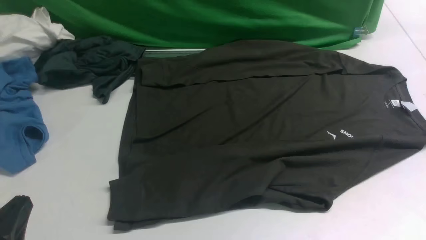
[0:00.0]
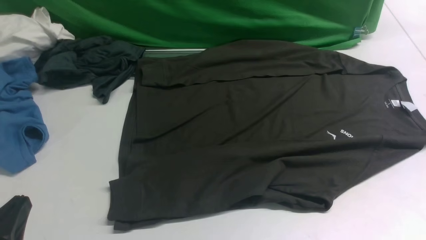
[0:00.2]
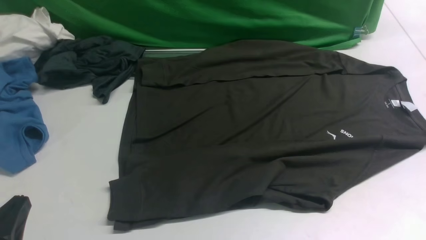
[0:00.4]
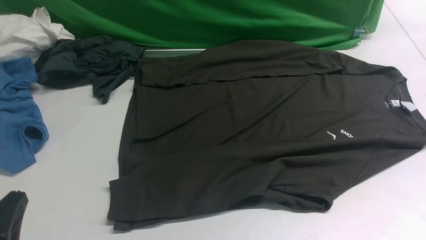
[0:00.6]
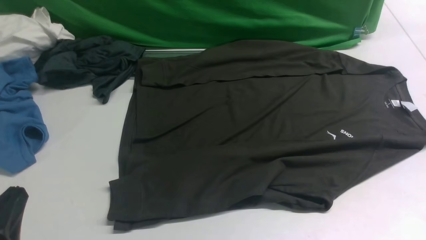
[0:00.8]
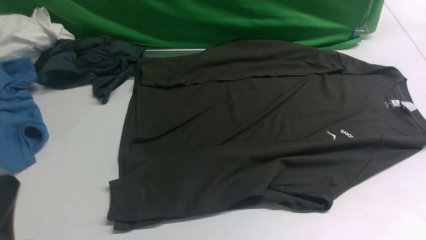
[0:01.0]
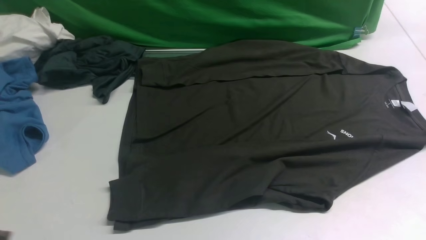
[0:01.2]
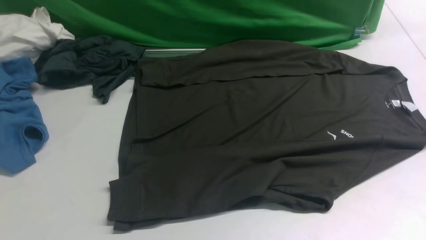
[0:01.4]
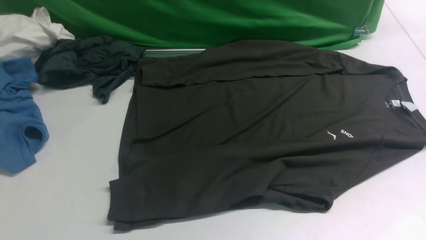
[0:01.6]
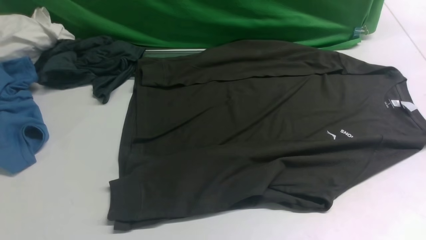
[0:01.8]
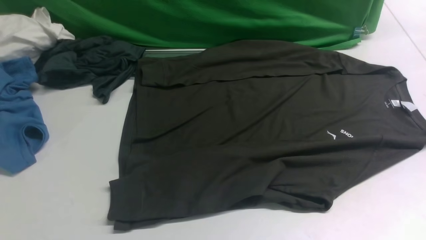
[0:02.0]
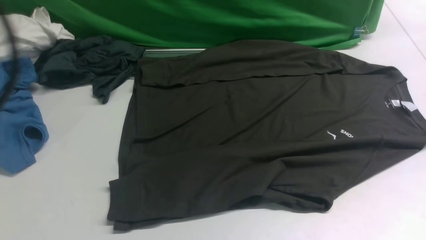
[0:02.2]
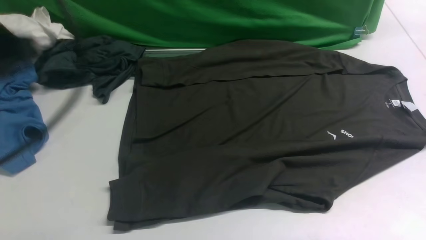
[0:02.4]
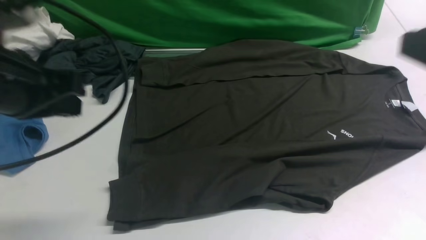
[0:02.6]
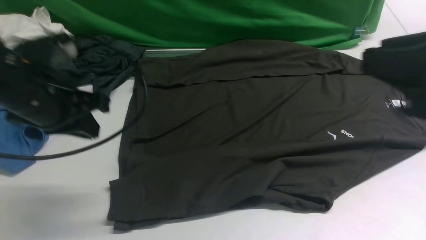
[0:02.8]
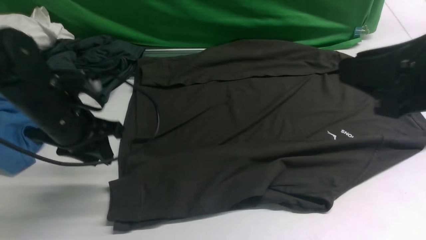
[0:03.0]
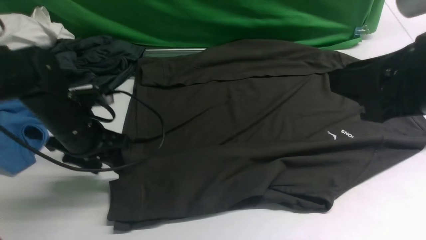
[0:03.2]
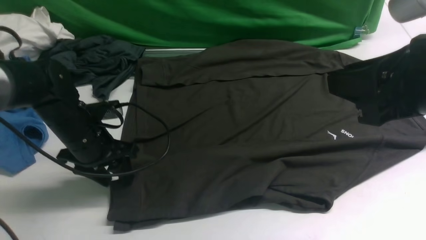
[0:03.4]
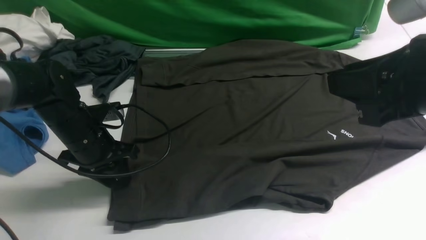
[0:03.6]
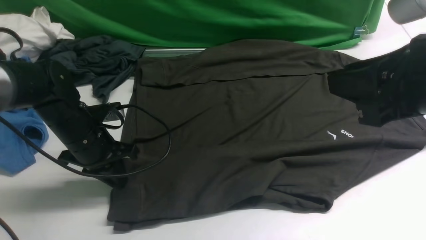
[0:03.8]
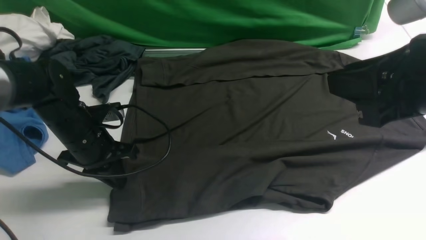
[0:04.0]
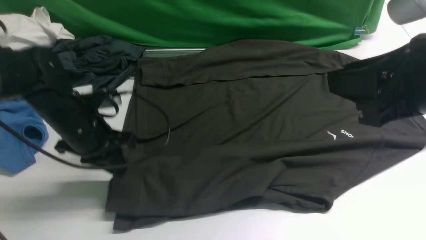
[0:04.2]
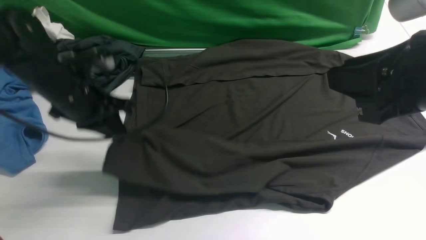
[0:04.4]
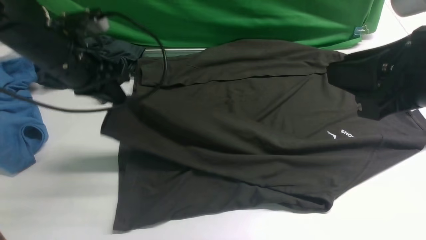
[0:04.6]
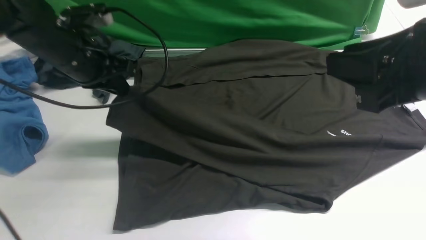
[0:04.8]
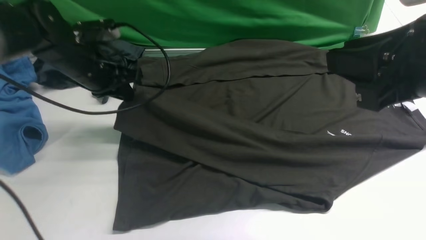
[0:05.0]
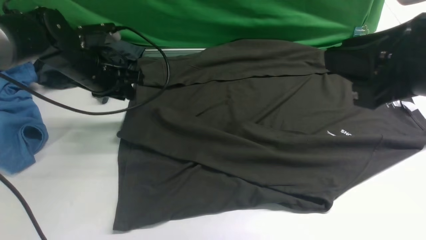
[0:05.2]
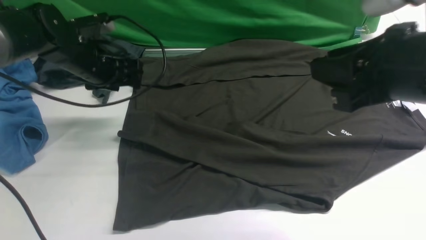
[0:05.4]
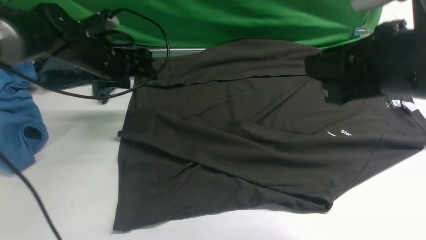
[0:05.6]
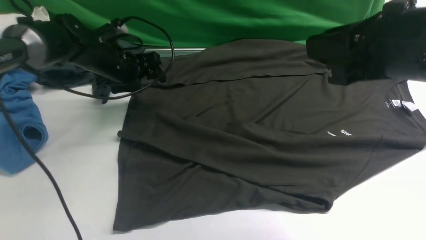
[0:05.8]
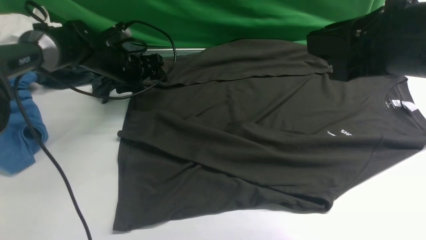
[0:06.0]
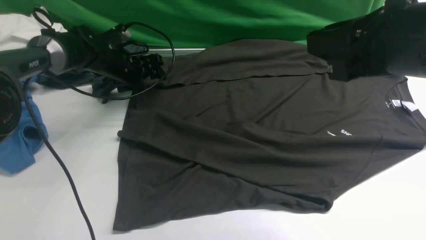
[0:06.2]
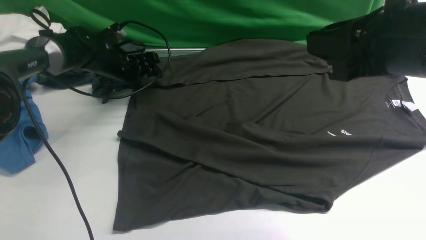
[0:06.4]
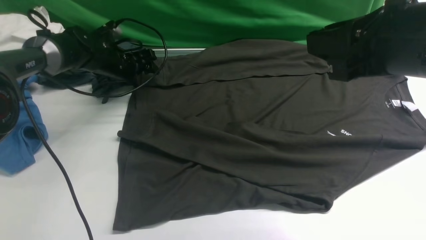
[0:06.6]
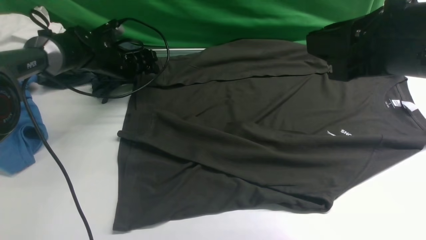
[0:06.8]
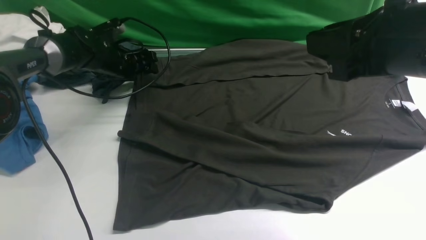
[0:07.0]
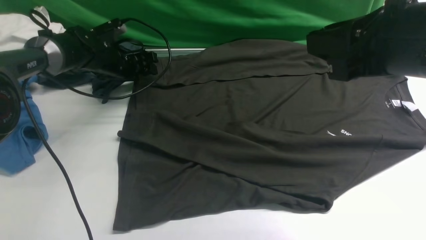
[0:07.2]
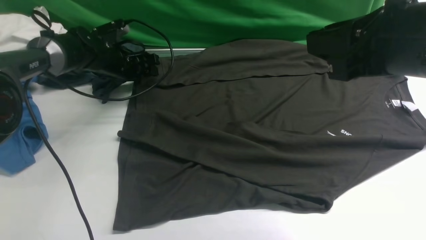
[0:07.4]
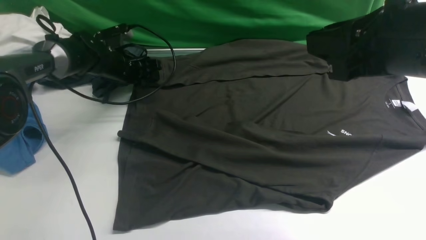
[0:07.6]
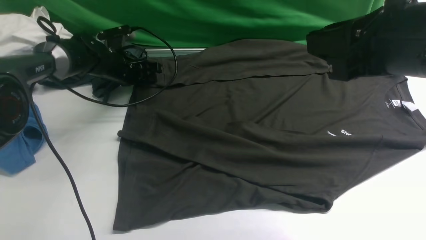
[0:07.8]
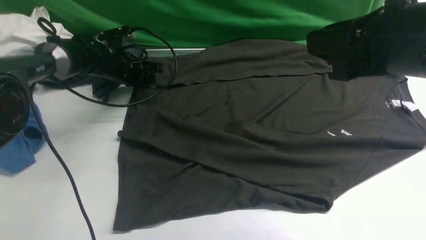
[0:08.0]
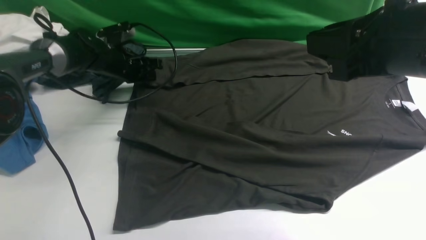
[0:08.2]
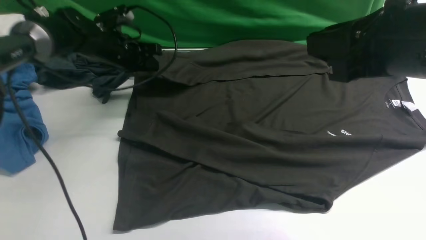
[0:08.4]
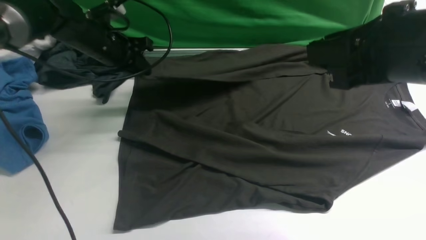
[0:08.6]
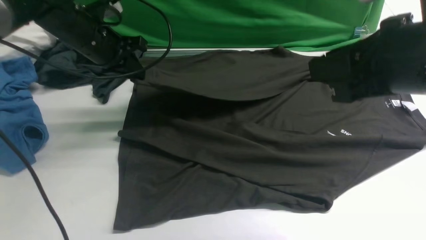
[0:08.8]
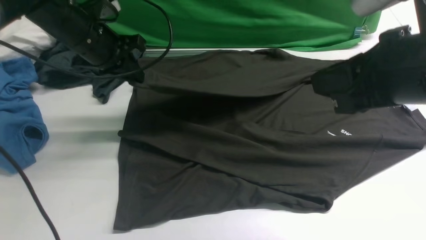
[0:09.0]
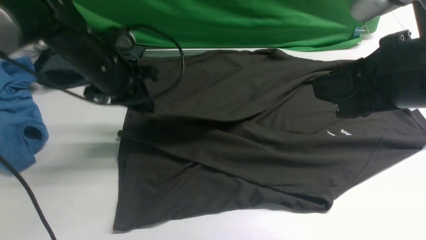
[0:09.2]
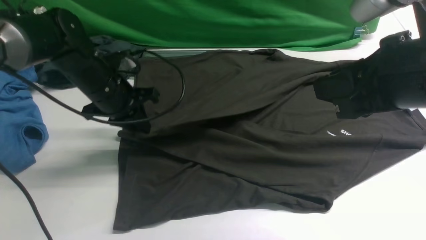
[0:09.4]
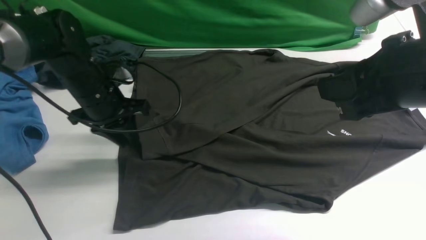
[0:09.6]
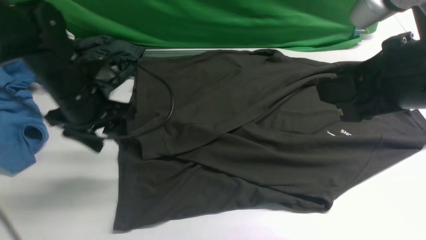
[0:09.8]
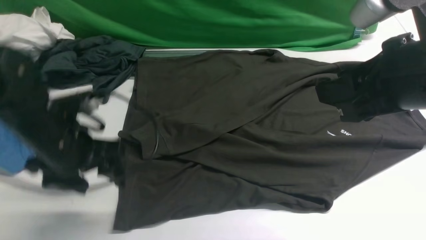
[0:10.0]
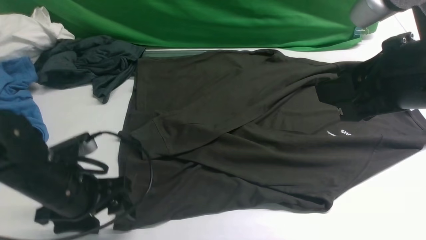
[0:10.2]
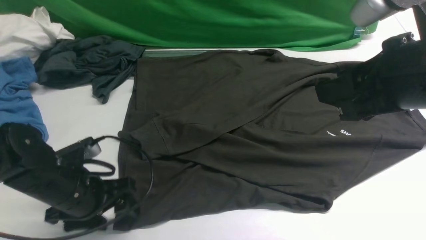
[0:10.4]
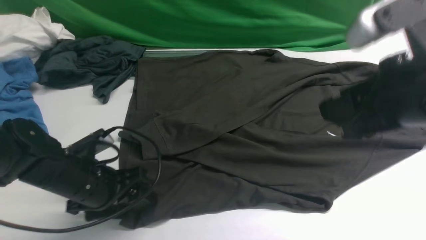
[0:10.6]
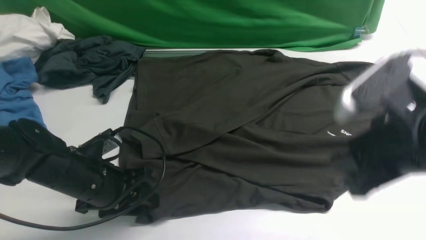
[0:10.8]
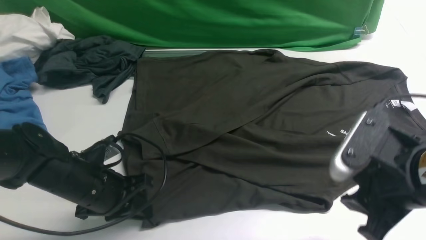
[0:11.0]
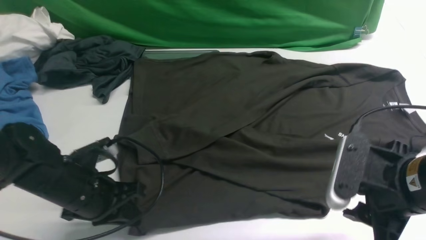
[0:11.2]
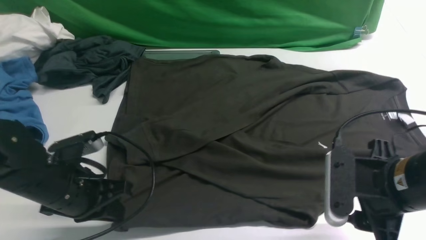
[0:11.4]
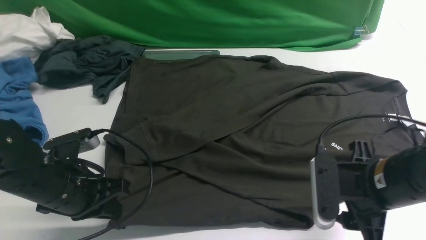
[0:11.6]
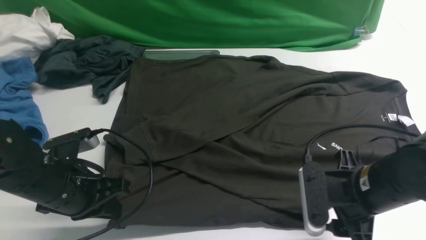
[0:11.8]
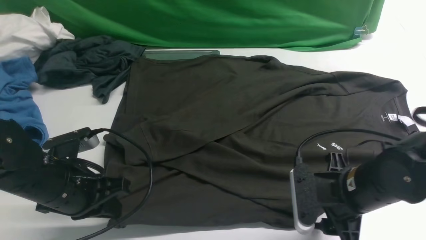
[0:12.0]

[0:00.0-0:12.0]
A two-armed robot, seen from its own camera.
Step, 0.0 to 4.2 s: use the left arm to clamp the cuff closest to it.
Step, 4.4 to 5.4 s: use the left arm to drag and place the cuff at the centered position on the left edge of the fabric.
Step, 5.6 to 8.2 s: use the left arm to clamp the cuff farthest from it.
Step, 8.6 to 9.6 s: use the left arm to drag and drop the cuff onto the cuff closest to the left arm.
0.0 to 1.6 s: The left gripper travels upward by approximately 15 cm.
1.6 to 3.0 s: The left gripper shifts approximately 30 cm forward and downward, and opens; the right gripper travels forward and to the left by approximately 15 cm.
3.0 to 4.4 s: The left gripper reaches roughly 5 cm downward, then returns.
4.4 to 6.0 s: The left gripper goes approximately 15 cm forward and downward, and opens up.
6.0 to 7.6 s: The grippers stay close to where they were, moving slightly.
7.6 to 9.0 s: The left gripper is displaced upward and backward by about 15 cm, and closes its fingers.
9.0 to 10.4 s: The left gripper heads backward and downward, covering approximately 20 cm, and opens its fingers.
10.4 to 12.0 s: The right gripper goes some 20 cm downward; the left gripper closes its fingers.

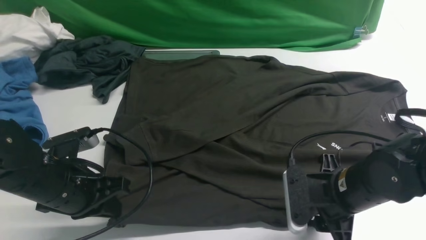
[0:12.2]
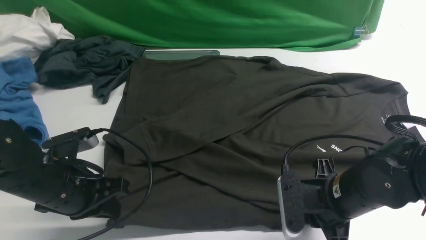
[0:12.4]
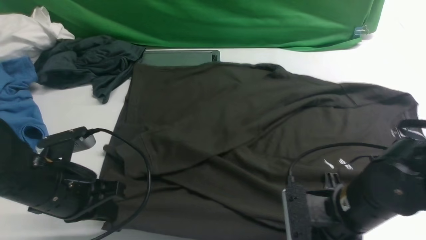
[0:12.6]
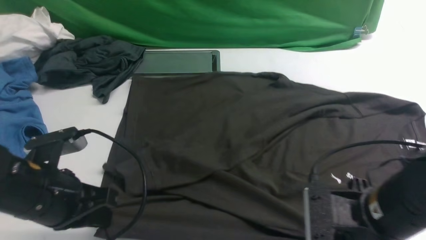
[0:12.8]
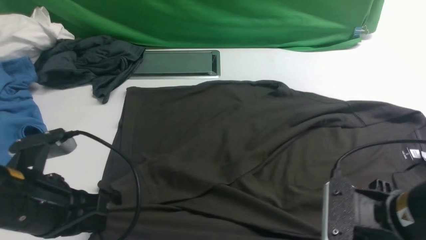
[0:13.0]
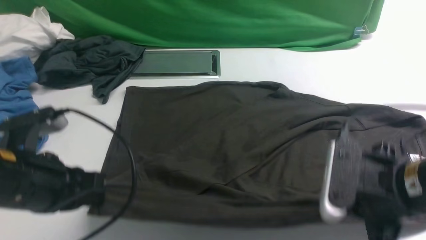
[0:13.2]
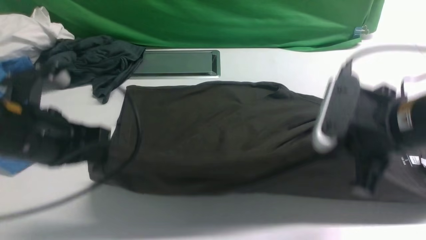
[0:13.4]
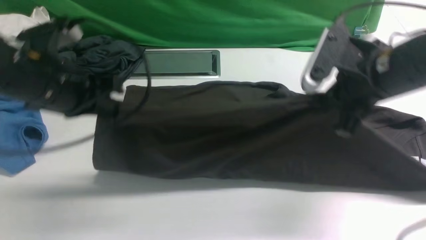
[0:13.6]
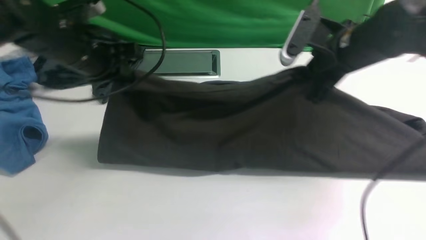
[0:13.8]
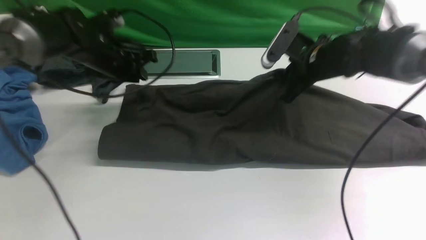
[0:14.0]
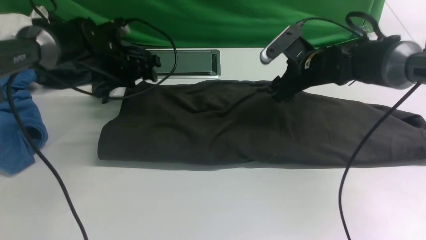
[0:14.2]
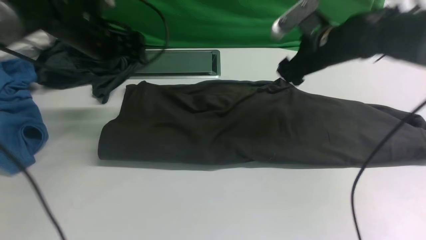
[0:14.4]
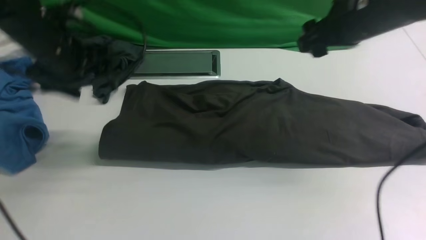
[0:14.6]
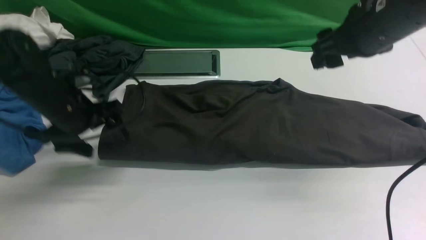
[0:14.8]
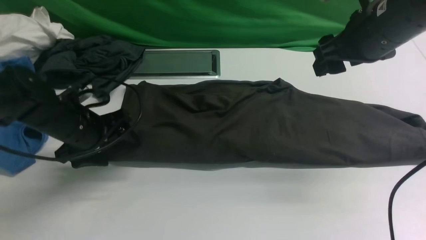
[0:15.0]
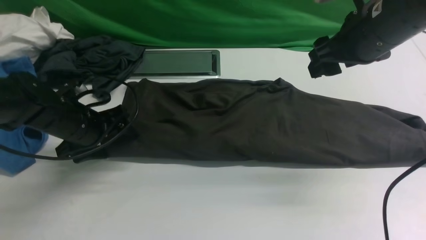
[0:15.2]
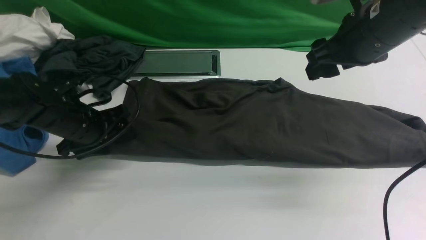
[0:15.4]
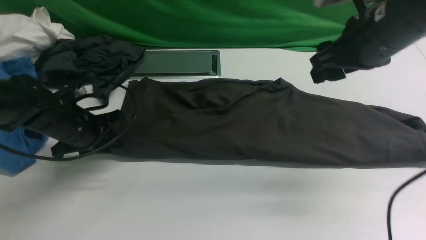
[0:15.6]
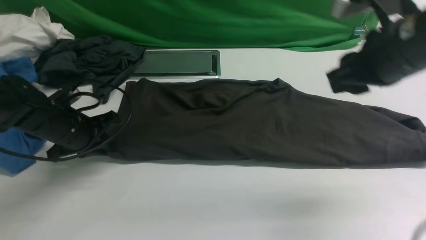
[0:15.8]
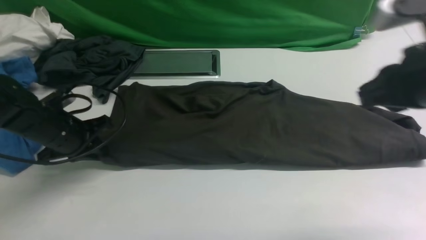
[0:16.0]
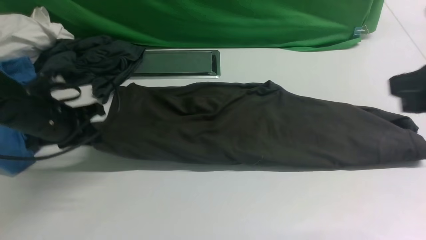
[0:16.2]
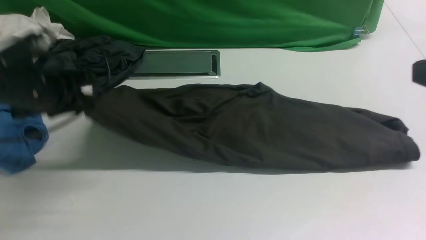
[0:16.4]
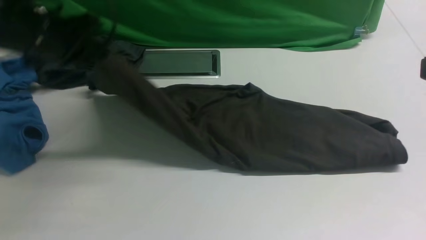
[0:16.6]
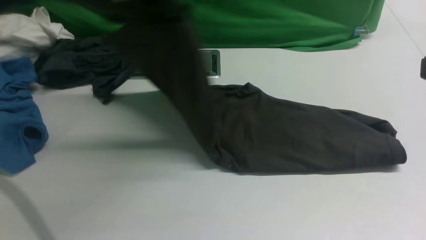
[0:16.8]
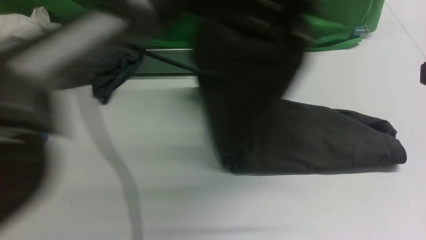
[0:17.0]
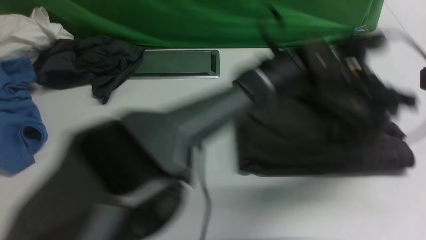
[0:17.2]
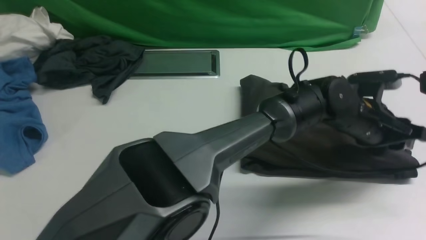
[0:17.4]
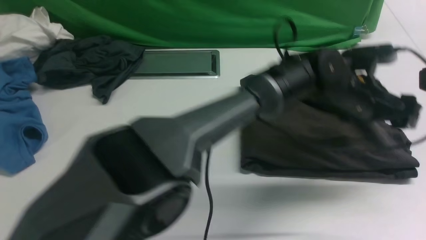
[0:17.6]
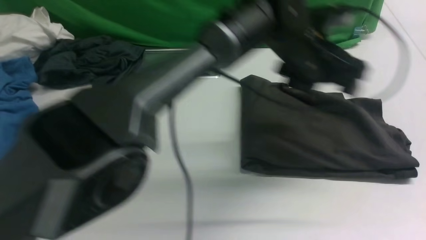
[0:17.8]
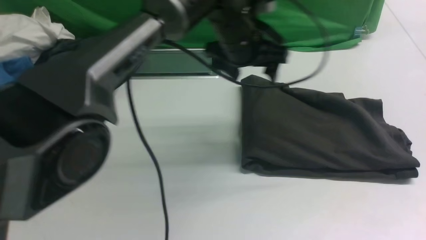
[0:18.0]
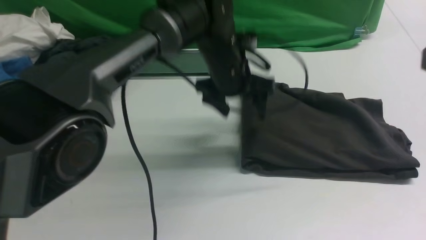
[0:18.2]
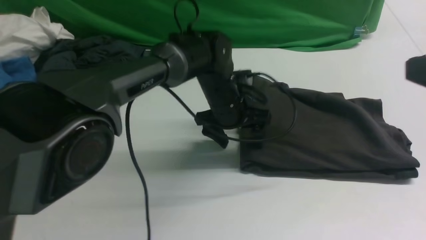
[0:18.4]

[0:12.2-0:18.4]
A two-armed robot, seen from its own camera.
Step, 13.0 to 14.4 s: use both arms to drag the lower edge of the fabric forward and fold it over the upper edge.
Step, 14.6 to 16.0 s: Hold the left edge of the fabric with your left arm.
Step, 16.4 to 17.4 s: Drag the left edge of the fabric to the left with your left arm and fold it to the right edge.
12.2 to 13.8 s: The two grippers go roughly 20 cm forward and upward. The right gripper closes up.
13.8 to 15.4 s: The right gripper shifts approximately 10 cm upward, and opens; the left gripper goes some 10 cm downward, and opens.
15.4 to 16.8 s: The left gripper goes about 25 cm upward and to the right, and closes up; the right gripper goes about 20 cm backward, and closes.
16.8 to 18.4 s: The right gripper opens up. Meanwhile the left gripper travels downward by approximately 15 cm, travels to the right and back again, about 30 cm each way, and opens its fingers.
